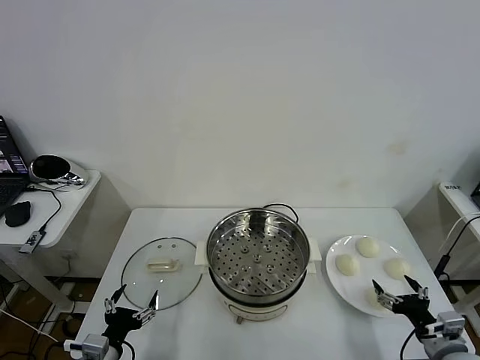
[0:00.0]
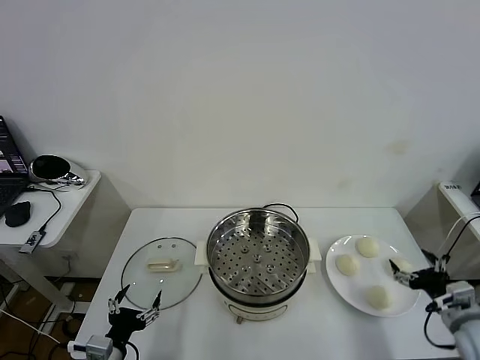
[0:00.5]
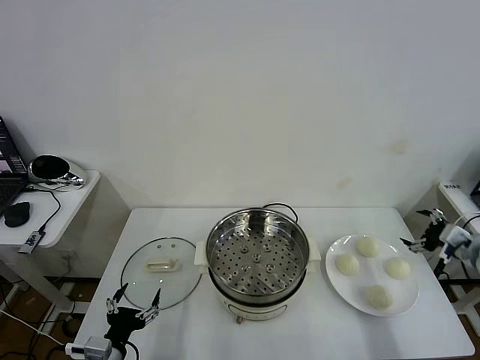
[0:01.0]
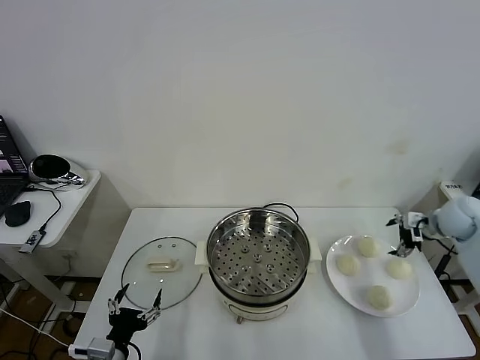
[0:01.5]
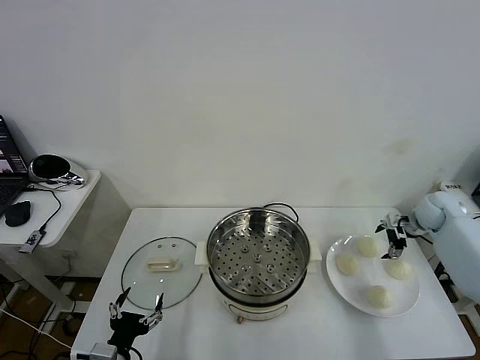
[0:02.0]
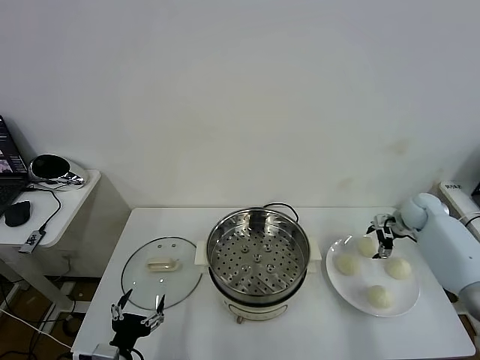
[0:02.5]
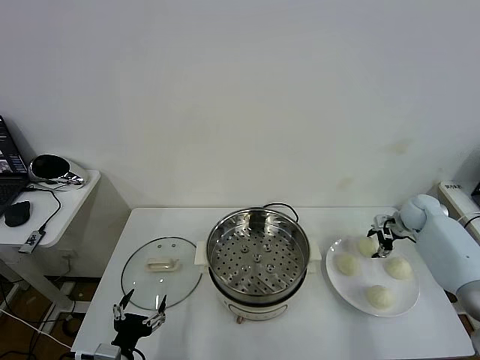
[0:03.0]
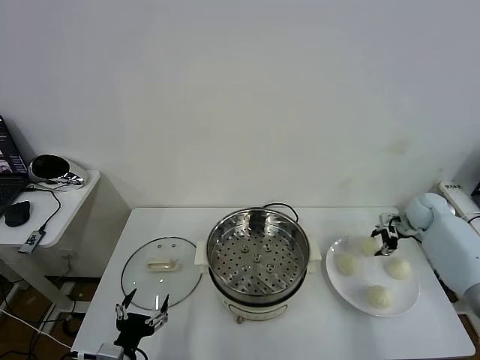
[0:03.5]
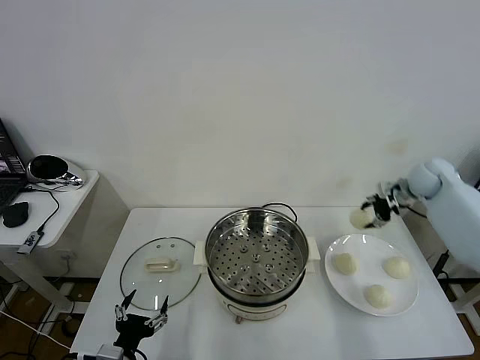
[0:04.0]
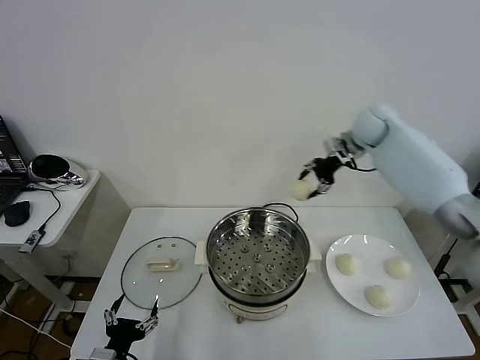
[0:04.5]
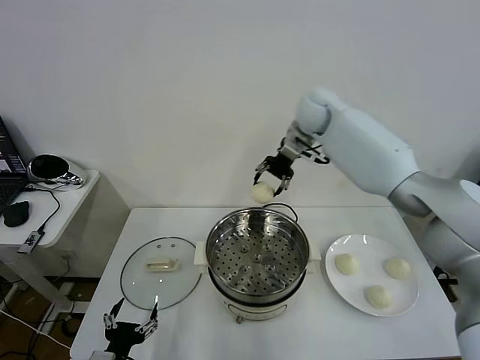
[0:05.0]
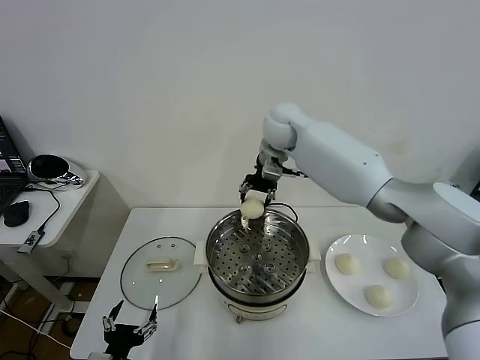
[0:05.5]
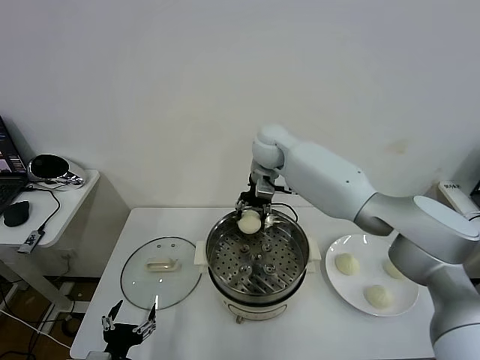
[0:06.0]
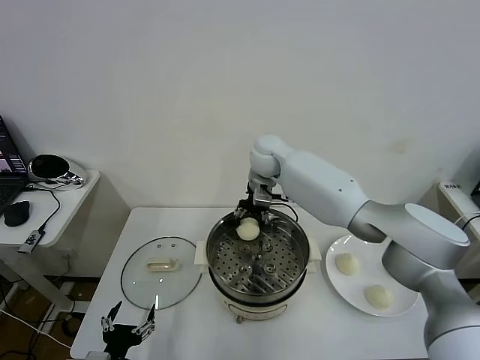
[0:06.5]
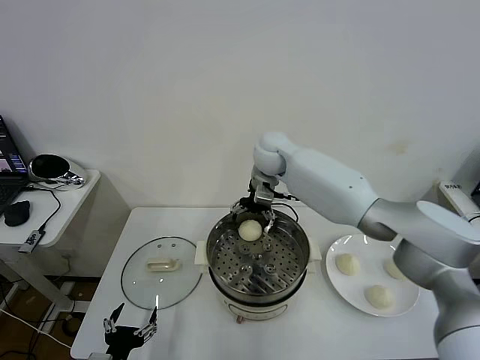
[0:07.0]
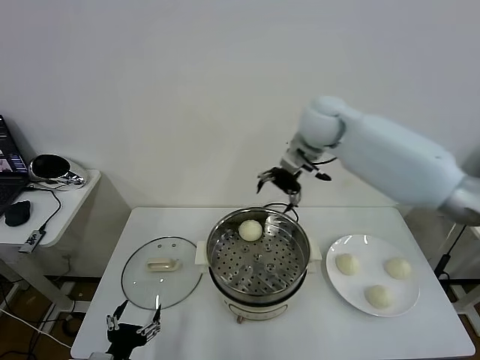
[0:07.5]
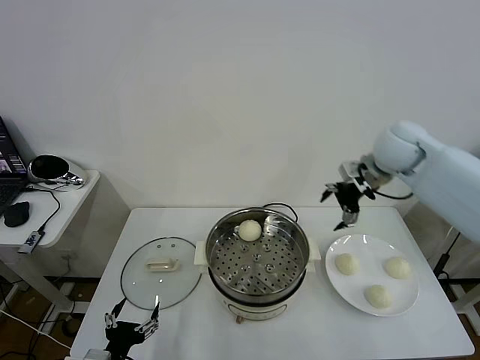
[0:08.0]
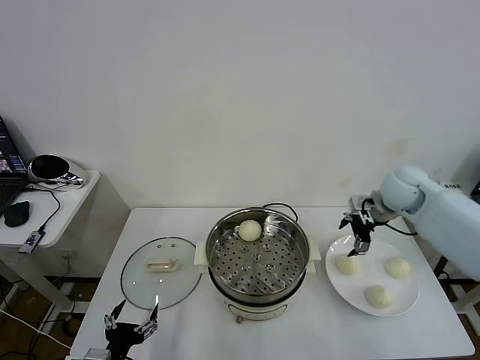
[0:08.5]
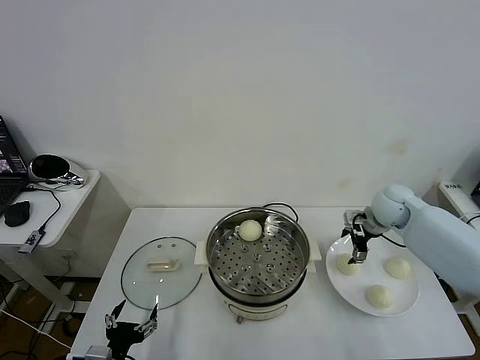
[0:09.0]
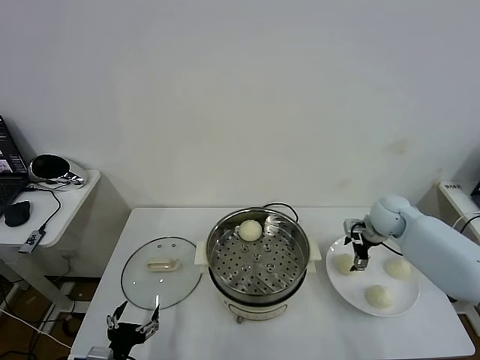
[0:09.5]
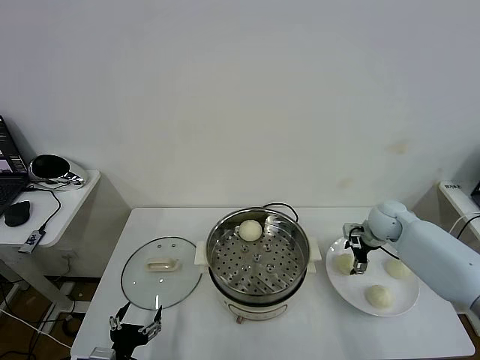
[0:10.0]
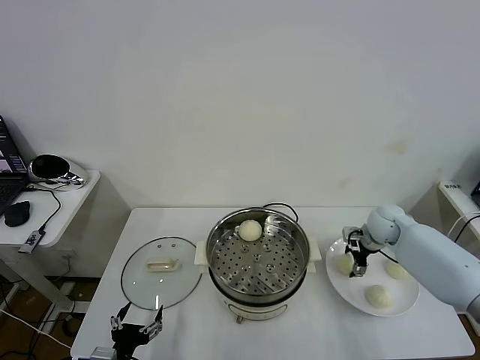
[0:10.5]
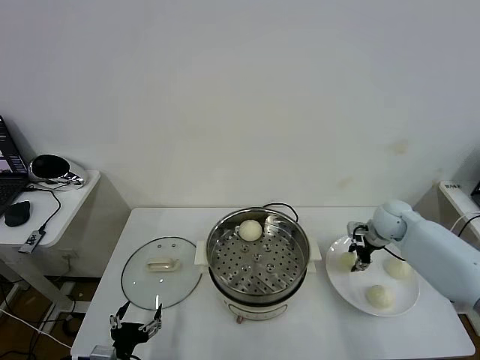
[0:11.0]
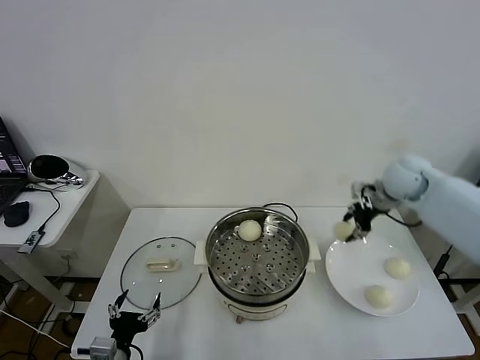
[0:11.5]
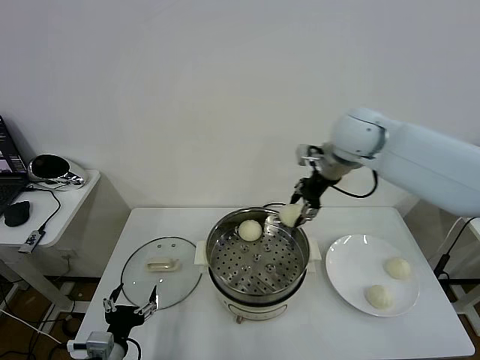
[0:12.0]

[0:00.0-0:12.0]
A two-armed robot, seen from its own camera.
Task of the whole recording: take steamed baozi put them in steamer then cover it.
Step, 0.0 to 3.0 s: Grasp the baozi in the plate with right gripper.
Step, 3.5 to 6.5 s: Place the baozi on the steamer with right gripper.
Step, 7.5 to 10.5 s: Grasp the baozi in the plate with right gripper.
2.0 to 4.0 s: The right gripper moves upward, to the left and forward, some 15 cm, and closes its fingers.
4.0 to 6.0 s: The right gripper shifts approximately 35 cm to the left.
6.0 to 8.0 s: The right gripper travels to the right by some 25 cm, and opens up.
8.0 to 10.0 s: The right gripper moves downward, about 20 cm.
10.0 to 12.0 s: The right gripper shifts about 30 cm upward and to the left, and closes.

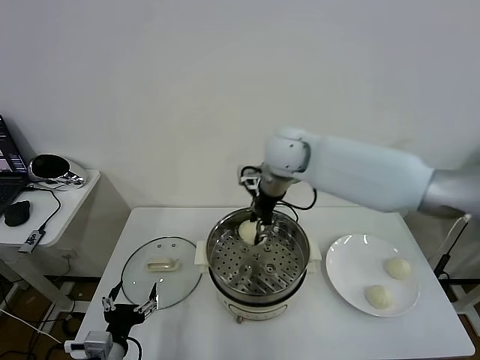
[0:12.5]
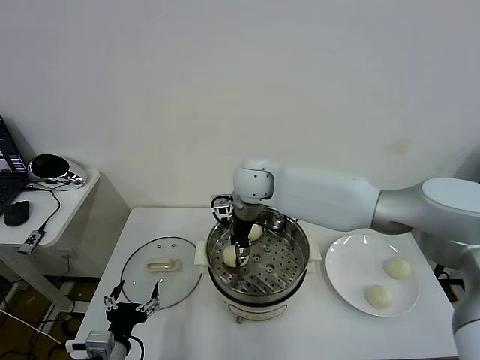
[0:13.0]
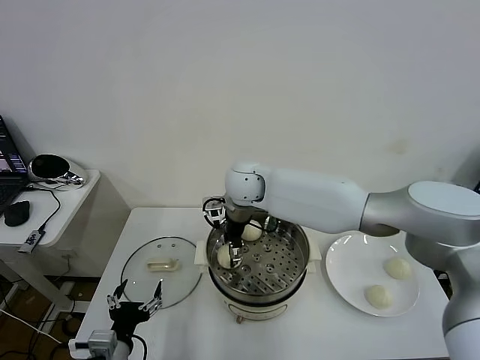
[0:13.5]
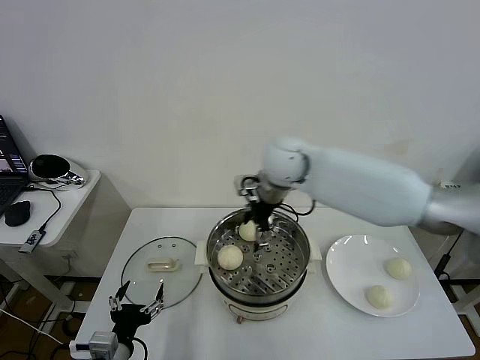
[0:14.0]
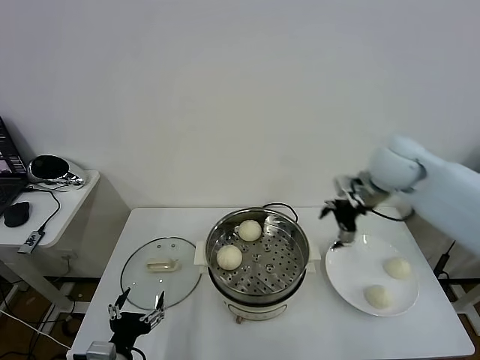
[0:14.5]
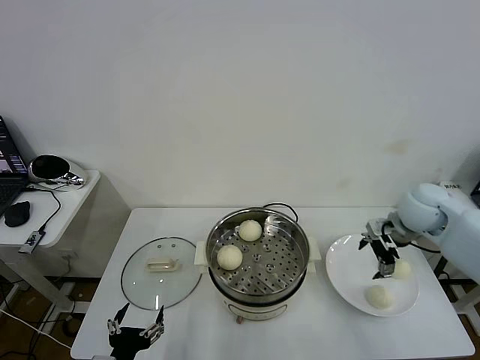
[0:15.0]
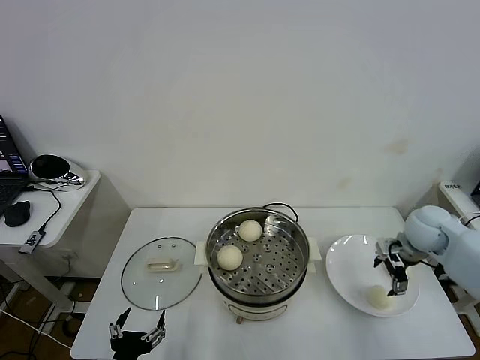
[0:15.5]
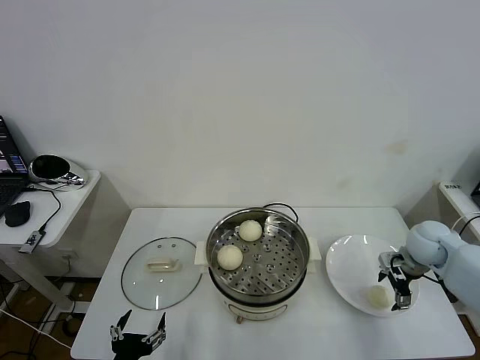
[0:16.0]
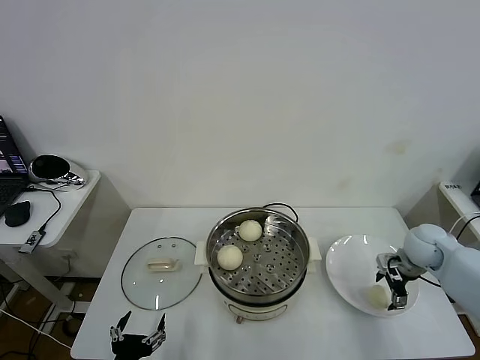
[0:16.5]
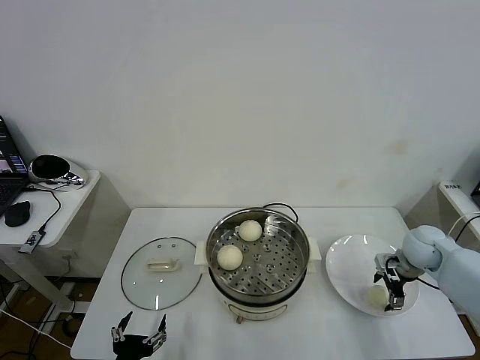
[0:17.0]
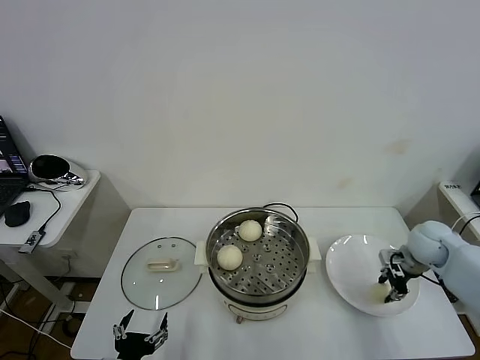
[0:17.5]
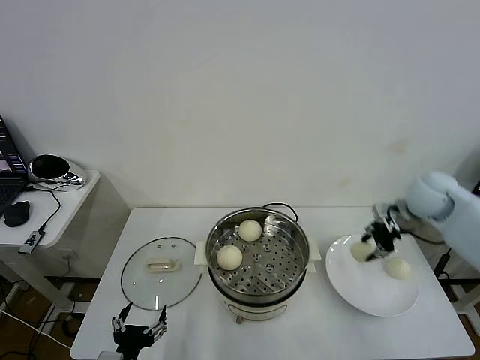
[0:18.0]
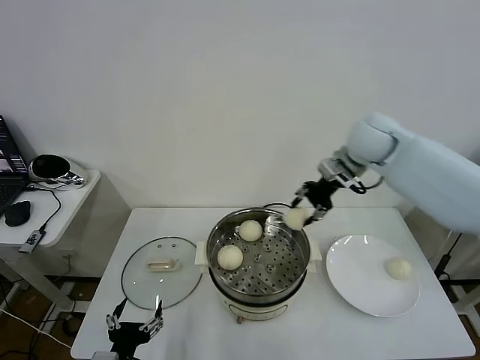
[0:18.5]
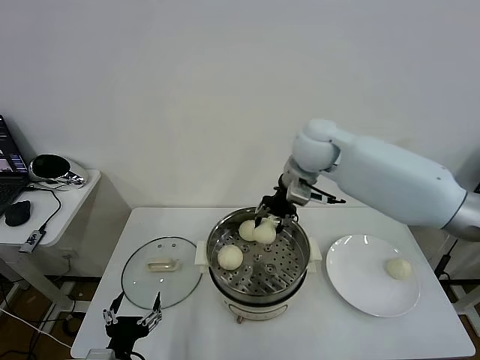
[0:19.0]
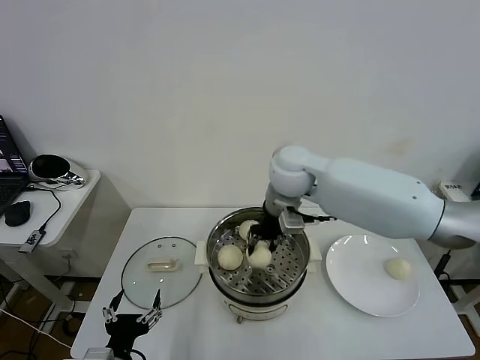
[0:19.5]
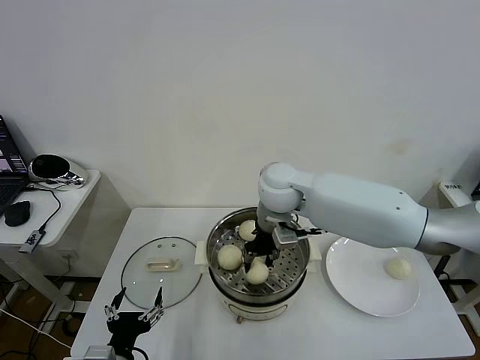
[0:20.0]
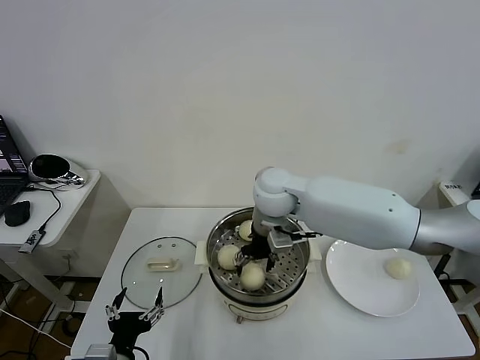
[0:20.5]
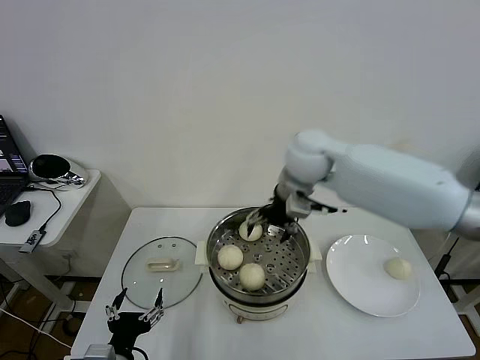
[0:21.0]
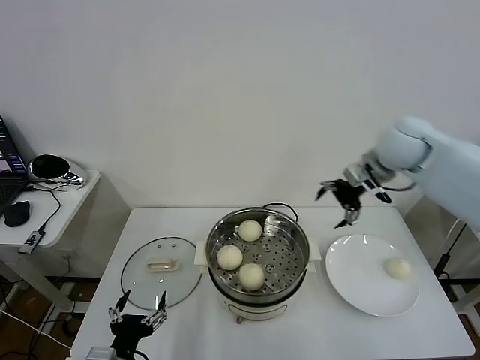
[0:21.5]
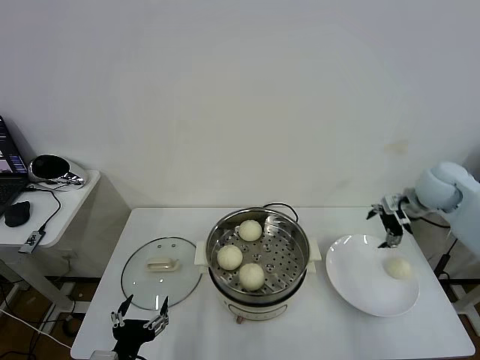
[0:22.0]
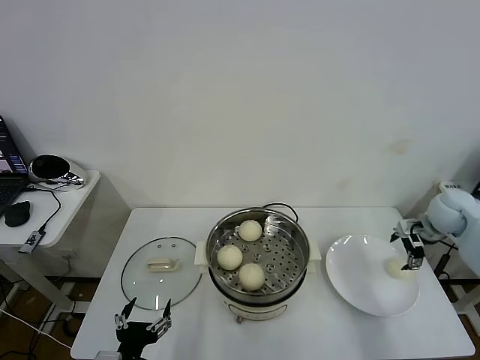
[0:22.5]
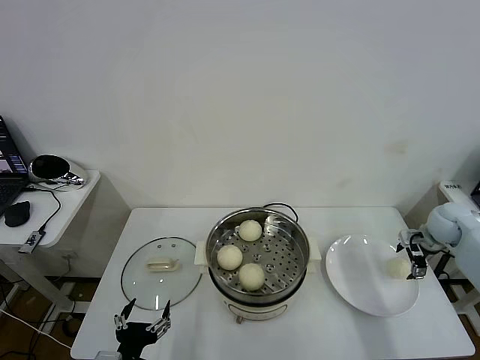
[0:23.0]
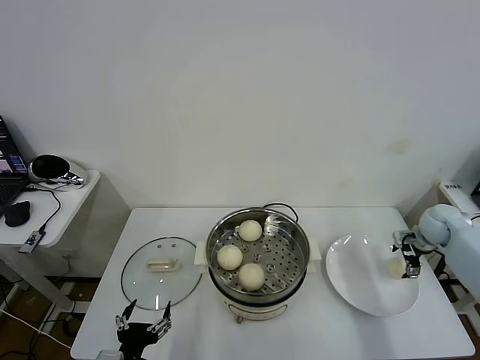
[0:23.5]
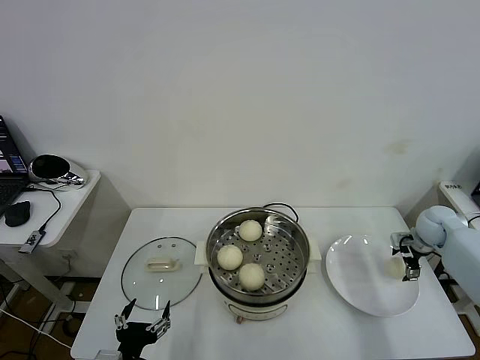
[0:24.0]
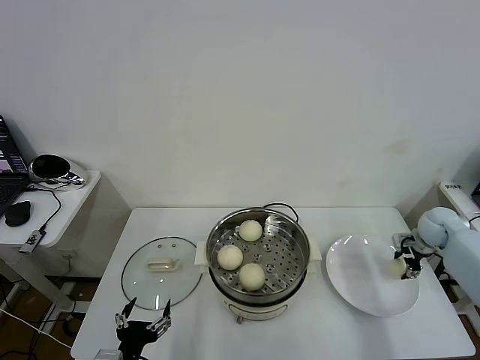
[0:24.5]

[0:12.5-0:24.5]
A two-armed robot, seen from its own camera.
Task of the whole recording: take steamed baozi put them in steamer then cover it.
Step, 14.0 to 17.0 s: Grasp the baozi in the plate with right gripper.
Step, 17.5 to 20.5 s: Place the baozi on the steamer with right gripper.
12.5 to 14.5 s: The right gripper shifts some 25 cm to the right, and opens.
14.5 to 16.5 s: The right gripper is displaced downward and to the right by approximately 20 cm.
16.5 to 18.5 s: The right gripper heads upward, to the left and forward, covering roughly 30 cm, and closes its fingers.
18.5 to 20.5 s: The right gripper moves to the left and downward, approximately 20 cm, and opens.
20.5 to 22.5 s: The right gripper goes about 40 cm to the right.
22.5 to 24.5 s: The right gripper goes approximately 5 cm downward, and closes its fingers.

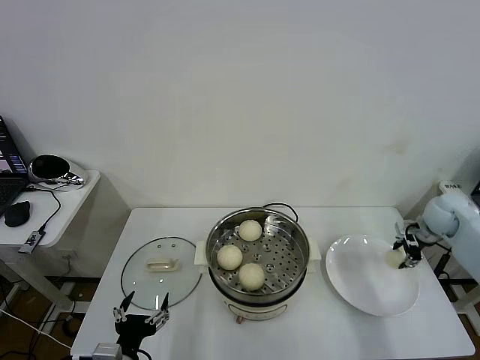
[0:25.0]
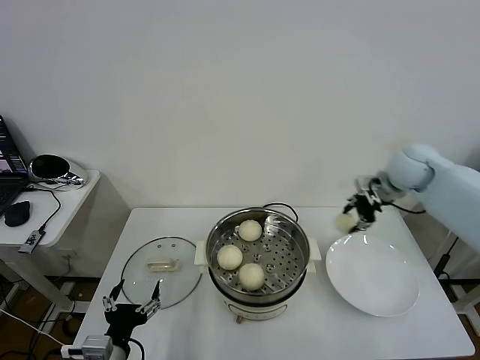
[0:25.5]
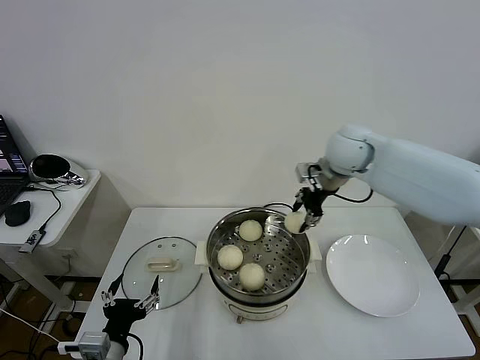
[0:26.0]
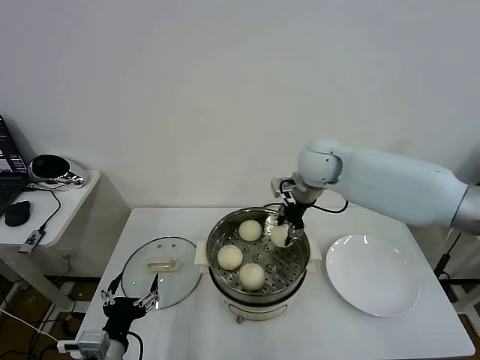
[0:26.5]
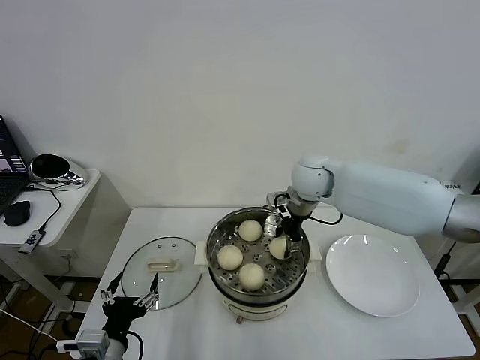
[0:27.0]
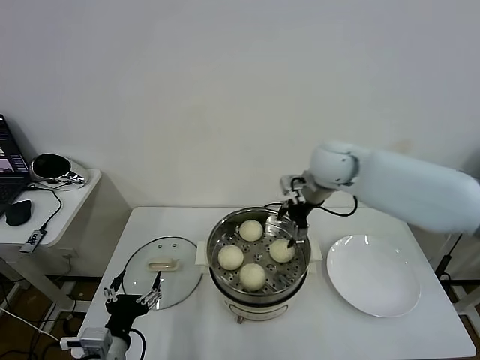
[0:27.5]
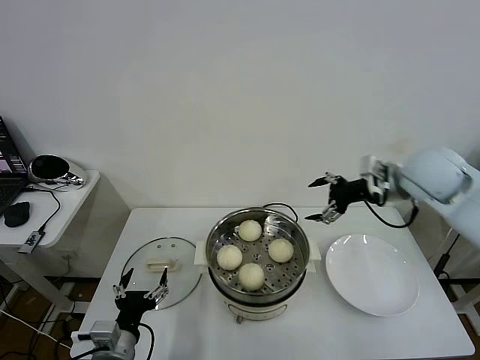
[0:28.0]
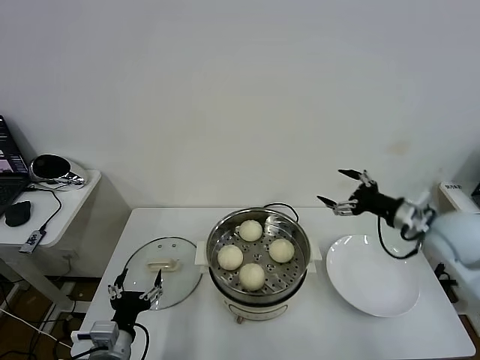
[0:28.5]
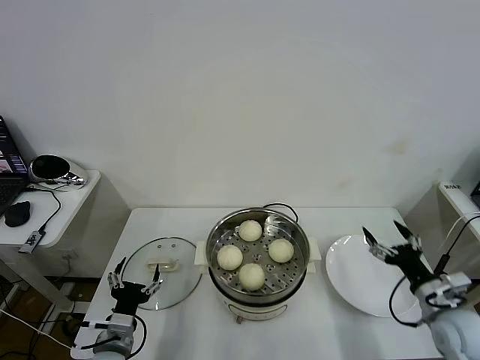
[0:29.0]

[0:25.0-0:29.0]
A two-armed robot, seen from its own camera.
Task of the whole recording: take steamed baozi put them in steamer then cover it.
Step, 25.0 to 27.5 s: Place the baozi on the steamer with right gripper.
25.0 to 27.0 s: The right gripper moves to the left, about 35 cm.
27.0 to 29.0 s: The right gripper heads backward, to the right and downward, covering approximately 40 cm, and opens its fingers. The left gripper ends up some 5 cm from where it was.
